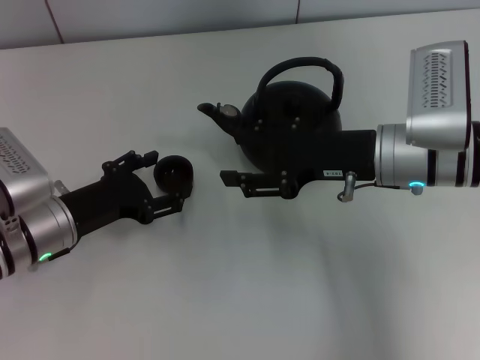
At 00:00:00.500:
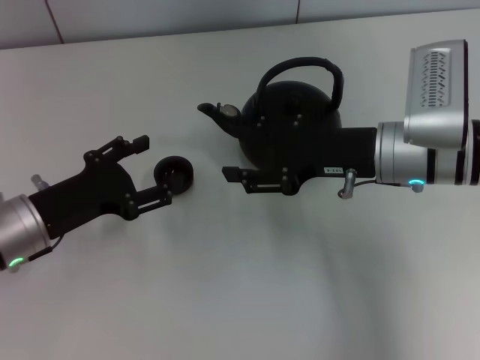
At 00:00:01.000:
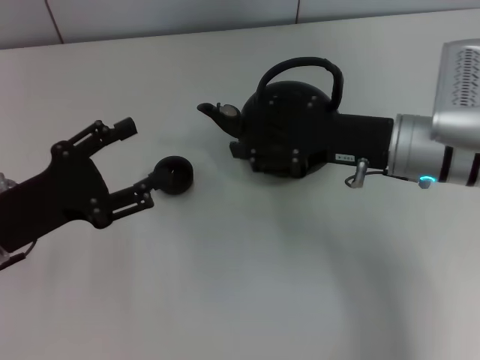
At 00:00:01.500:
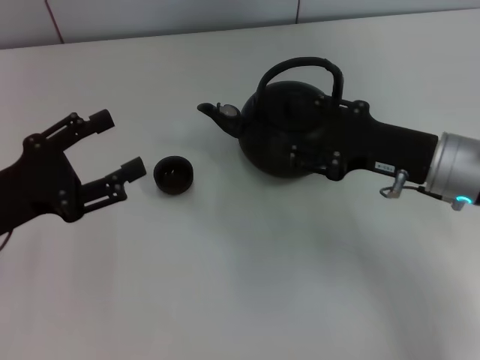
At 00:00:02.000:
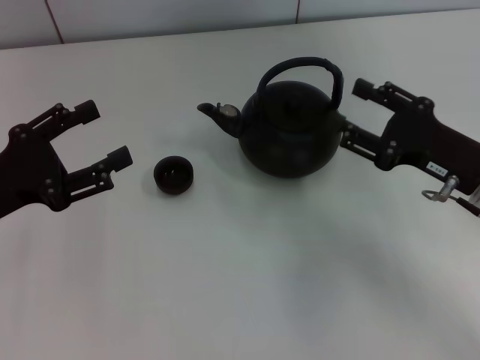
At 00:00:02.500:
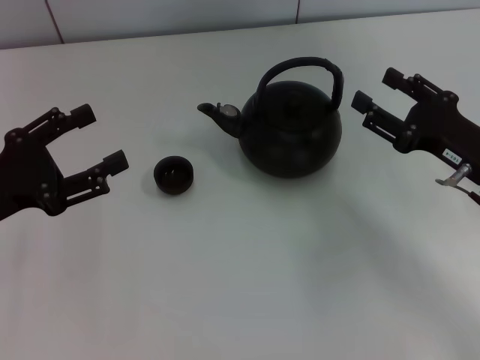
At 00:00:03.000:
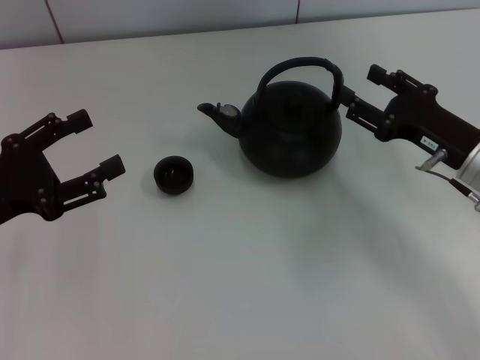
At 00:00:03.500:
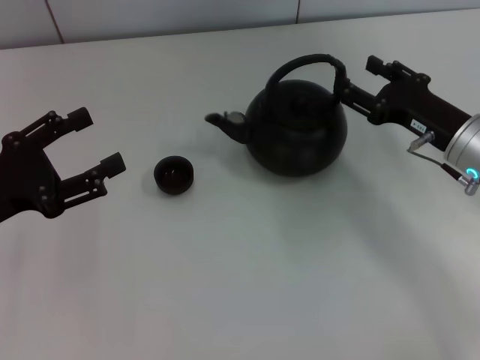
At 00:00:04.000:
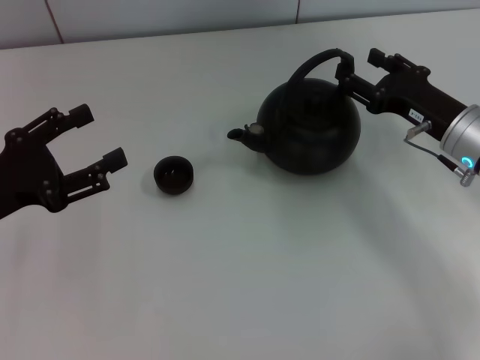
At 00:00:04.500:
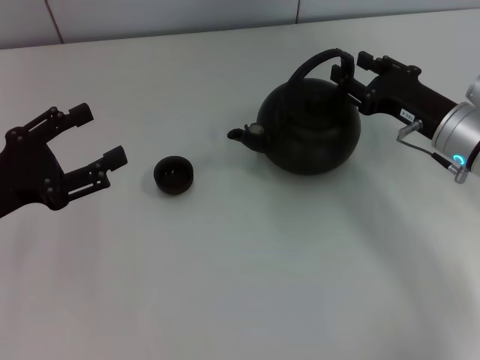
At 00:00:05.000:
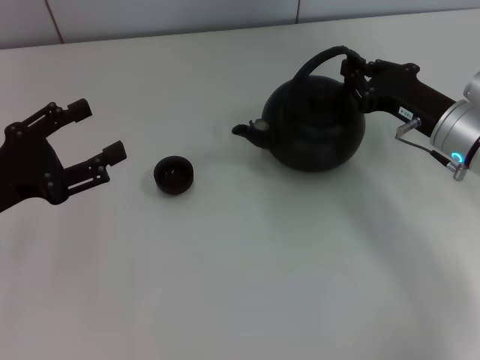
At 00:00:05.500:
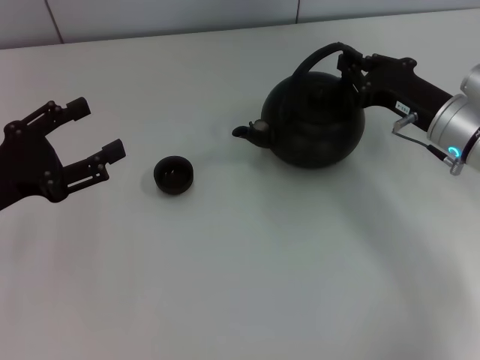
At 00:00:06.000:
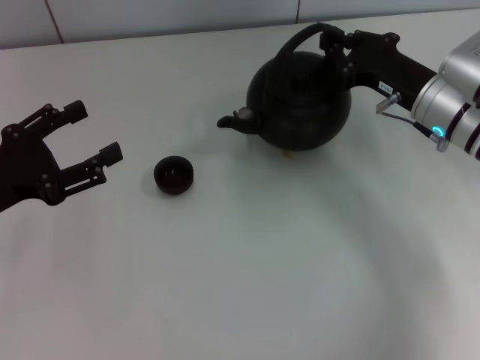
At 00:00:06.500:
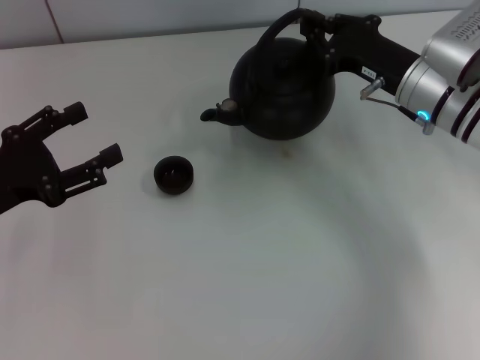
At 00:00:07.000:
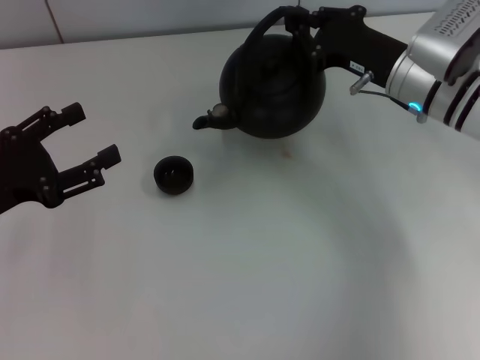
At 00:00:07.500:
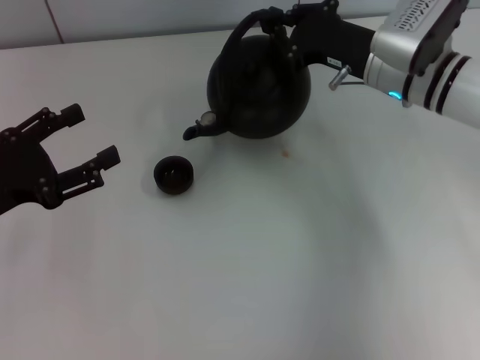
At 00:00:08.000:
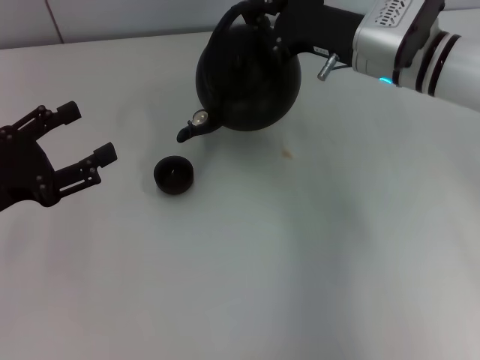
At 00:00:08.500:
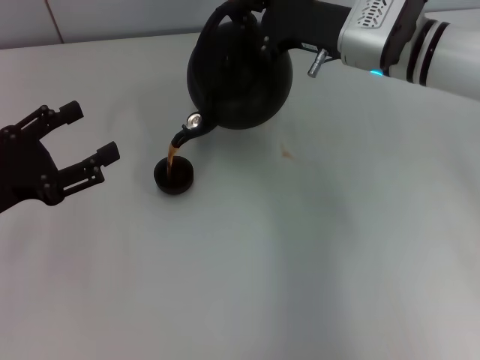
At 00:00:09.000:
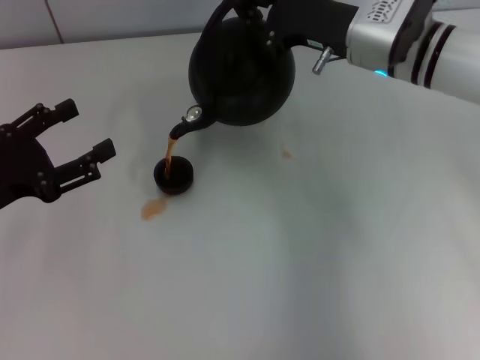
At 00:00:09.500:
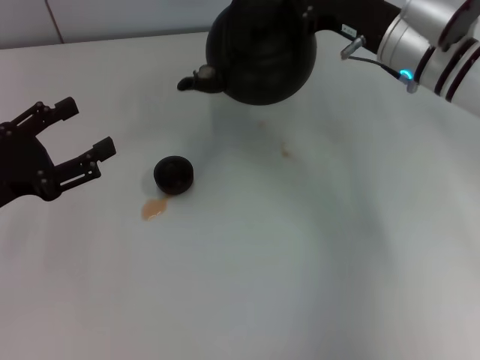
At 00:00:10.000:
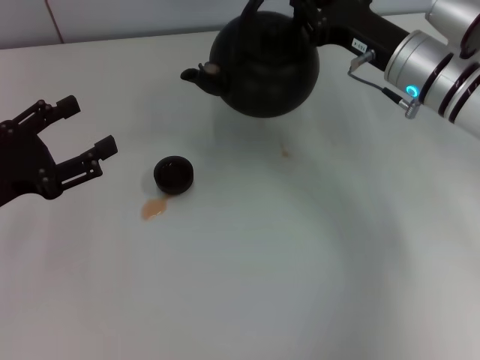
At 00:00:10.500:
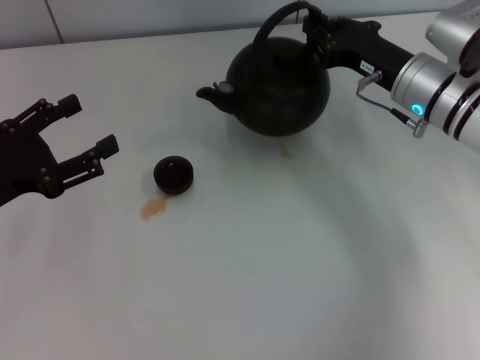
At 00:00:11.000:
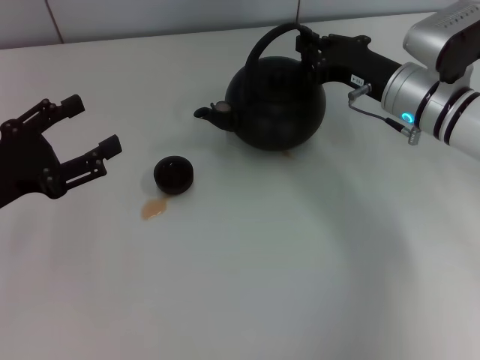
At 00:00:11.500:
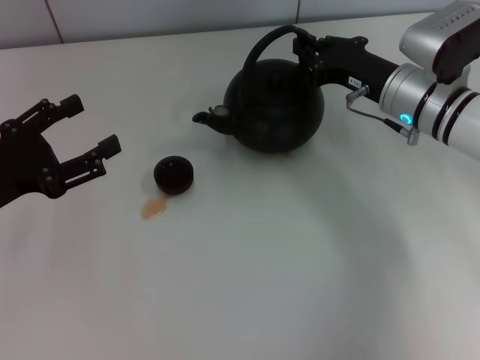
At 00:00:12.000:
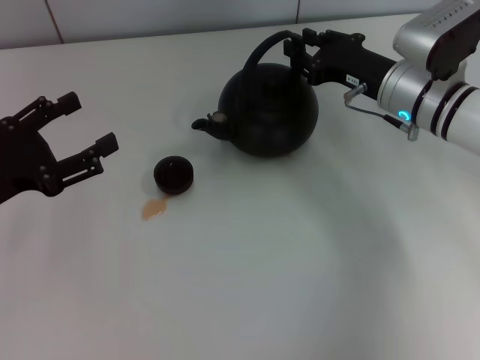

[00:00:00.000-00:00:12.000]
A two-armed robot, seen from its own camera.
Task of the whole recording: Grasp the handle of the teapot with one hand and pour tea into the teacup.
Step, 00:00:01.000 to 00:00:06.000: Pick up the teapot with the right gripper.
00:00:00.000 to 00:00:02.000: The left gripper goes about 10 cm upward and to the left. The right gripper shifts about 10 cm to the right and backward.
00:00:02.000 to 00:00:04.000: The right gripper heads forward, covering approximately 5 cm.
00:00:04.000 to 00:00:06.000: The right gripper closes.
00:00:06.000 to 00:00:08.000: The right gripper moves to the left and upward, some 10 cm.
00:00:10.000 to 00:00:12.000: The grippers make only small movements.

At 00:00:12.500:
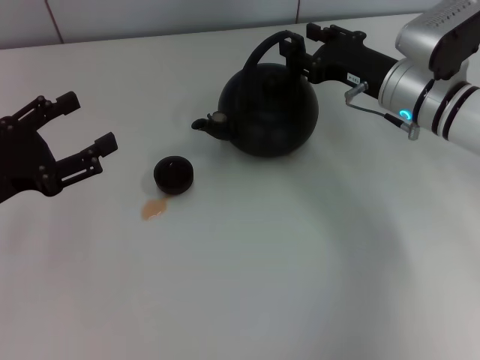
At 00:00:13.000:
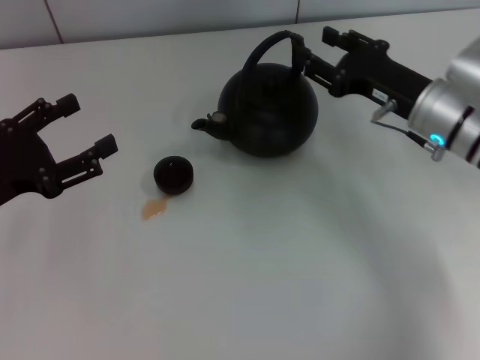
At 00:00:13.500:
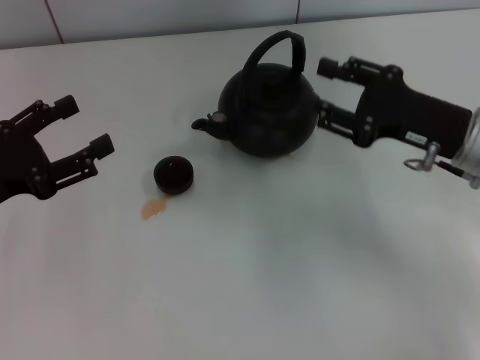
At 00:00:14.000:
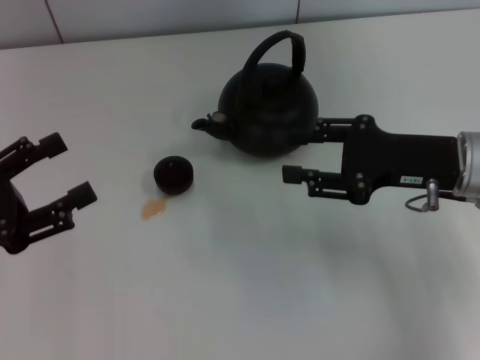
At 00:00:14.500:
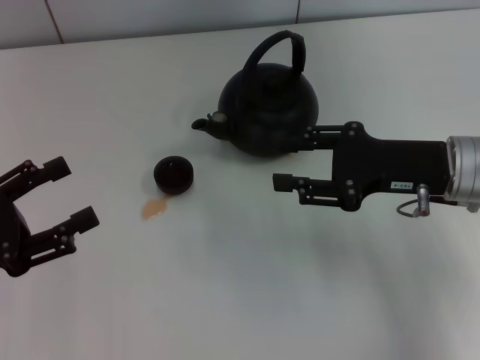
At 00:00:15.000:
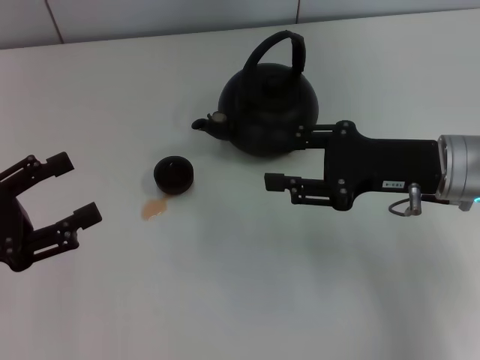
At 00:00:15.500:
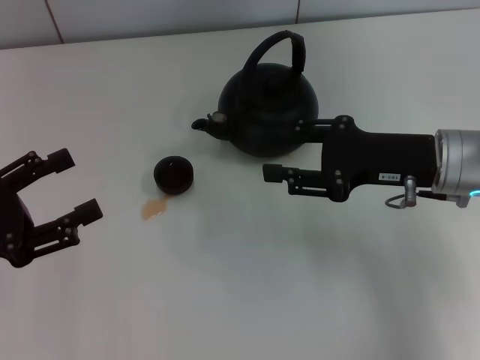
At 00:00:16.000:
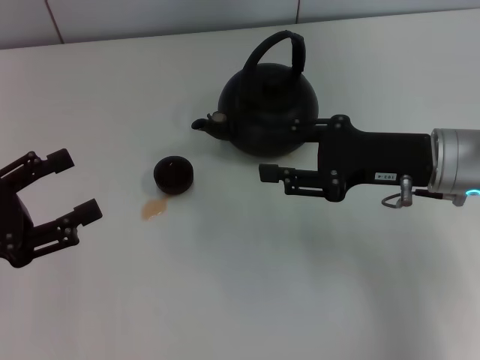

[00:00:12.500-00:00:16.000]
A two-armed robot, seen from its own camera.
Task of the whole recording: Grasp the handle of the teapot with one hand and pour tea into the teacup.
00:00:12.500 to 00:00:14.500: The left gripper moves backward, approximately 5 cm. Meanwhile the right gripper moves backward, about 10 cm.
00:00:14.500 to 00:00:16.000: Neither gripper changes place.
